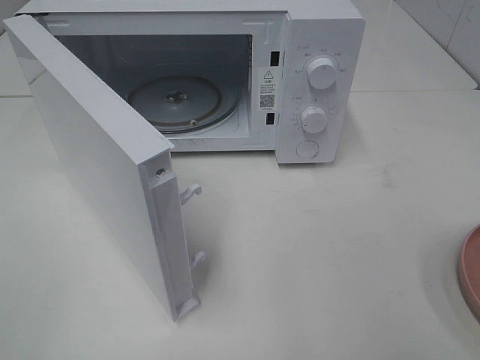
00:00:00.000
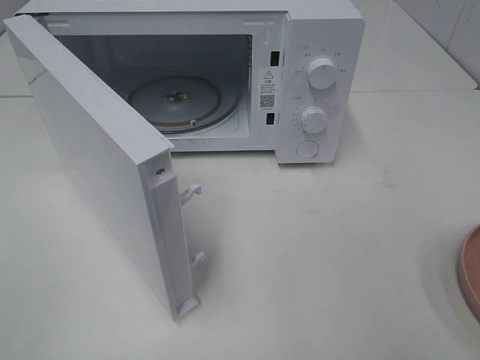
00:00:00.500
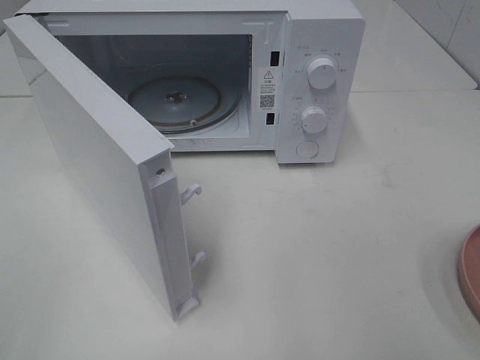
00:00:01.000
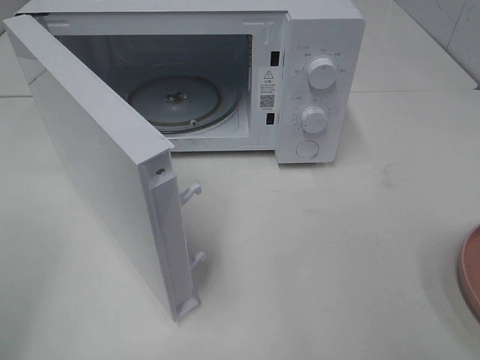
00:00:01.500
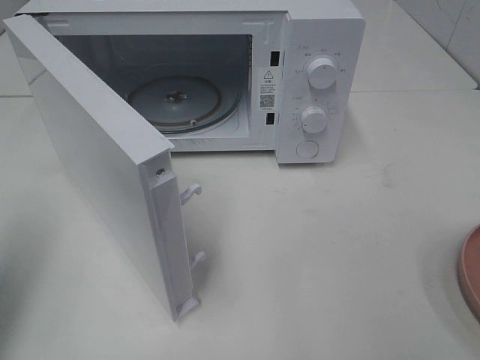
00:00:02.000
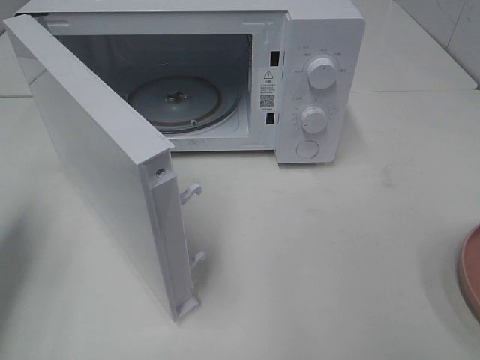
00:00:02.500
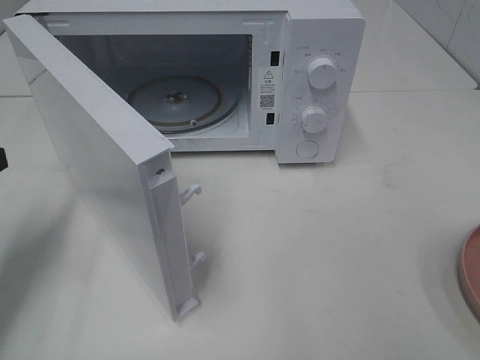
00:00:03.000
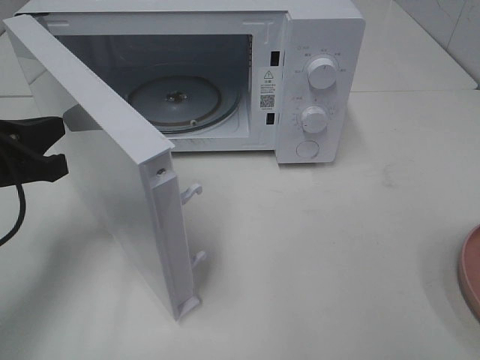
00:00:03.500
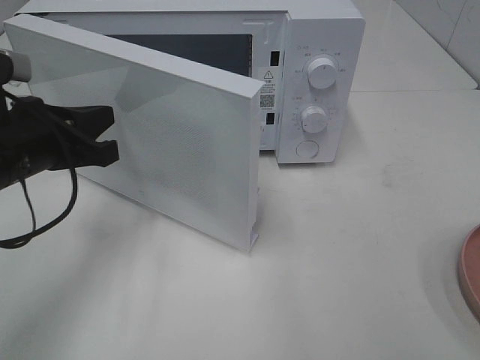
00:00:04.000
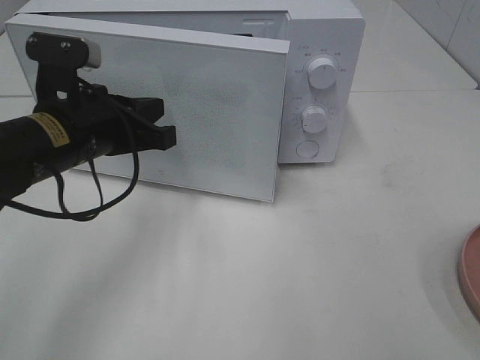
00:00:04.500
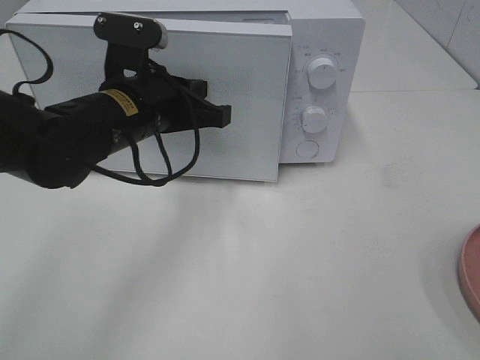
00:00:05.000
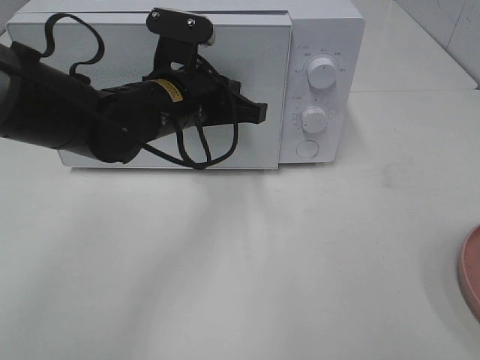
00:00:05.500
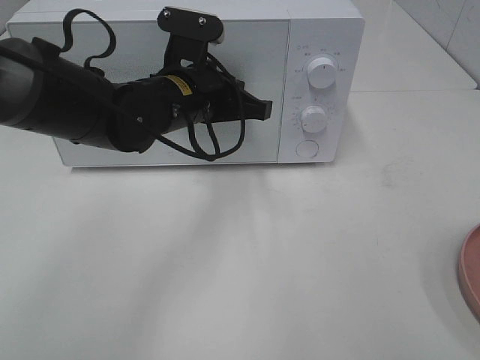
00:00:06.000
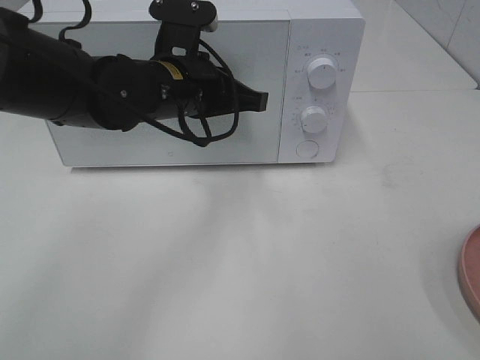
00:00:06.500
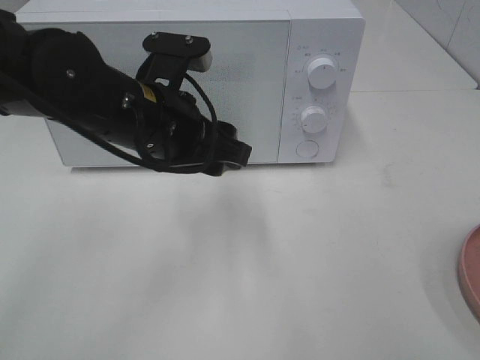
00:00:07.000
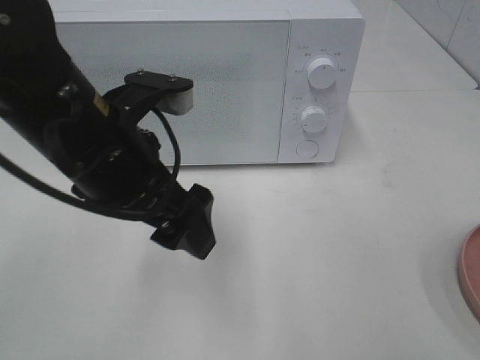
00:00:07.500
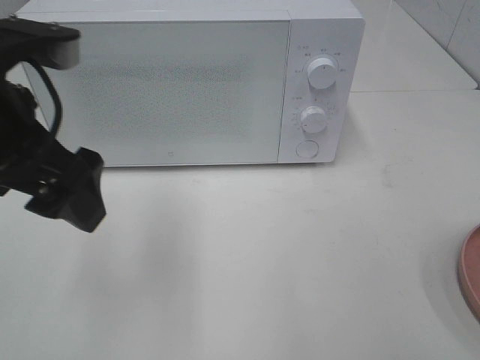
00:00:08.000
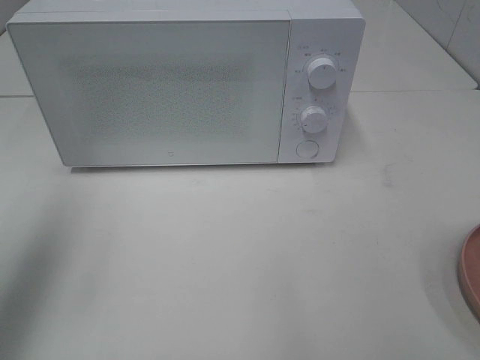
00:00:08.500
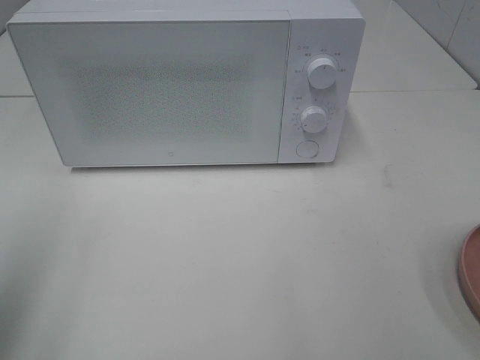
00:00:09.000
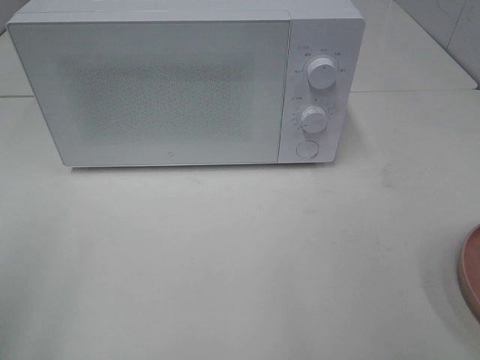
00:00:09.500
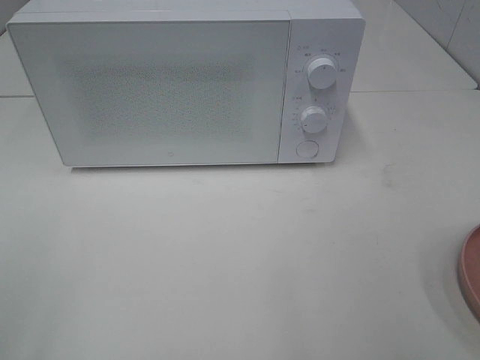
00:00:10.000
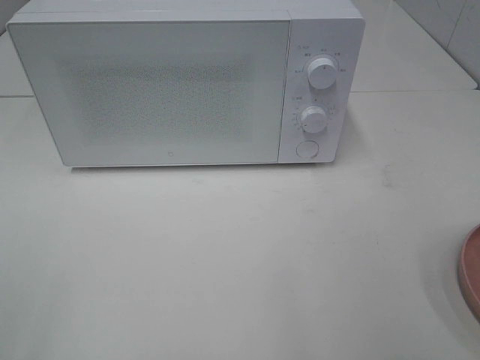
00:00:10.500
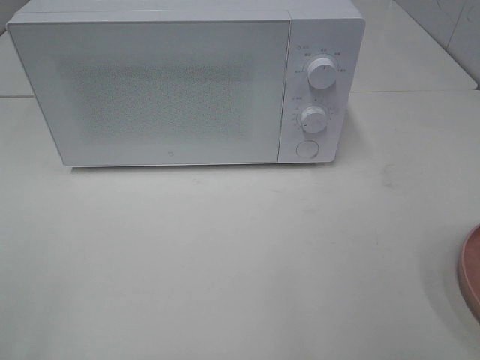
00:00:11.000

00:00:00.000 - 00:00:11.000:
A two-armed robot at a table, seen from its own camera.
Task of the whole recording: Heat the burger.
Step, 00:00:00.000 - 00:00:06.500: Left hand: close the microwave door.
00:00:00.000 - 00:00:02.000: The left gripper goes roughly 15 cm forward, and closes up.
00:00:02.000 - 00:00:03.500: The left gripper shifts roughly 15 cm downward, forward and to the right.
00:00:03.500 - 00:00:05.500: The left gripper shifts roughly 20 cm to the right and forward.
00:00:05.500 - 00:00:07.500: The left gripper heads backward and upward, covering some 10 cm, and opens up.
00:00:07.500 - 00:00:09.000: The left gripper shifts roughly 25 cm to the left and backward.
00:00:09.000 - 00:00:11.000: The left gripper moves backward, approximately 15 cm.

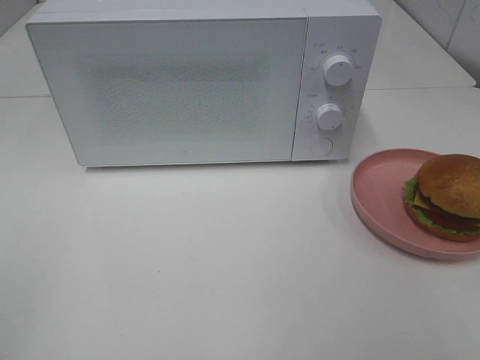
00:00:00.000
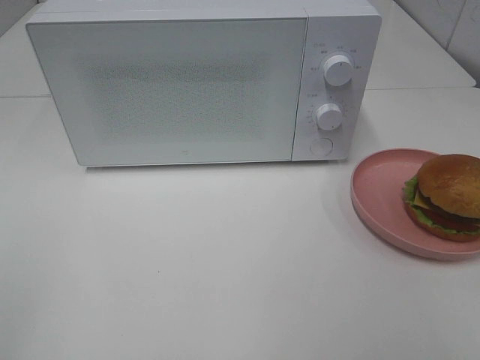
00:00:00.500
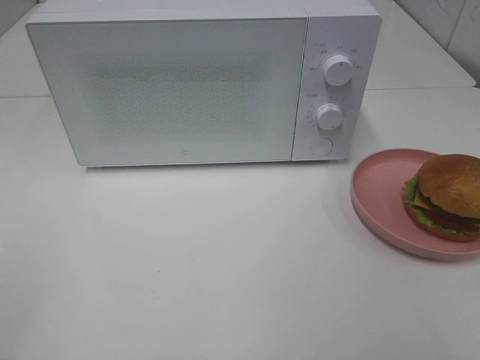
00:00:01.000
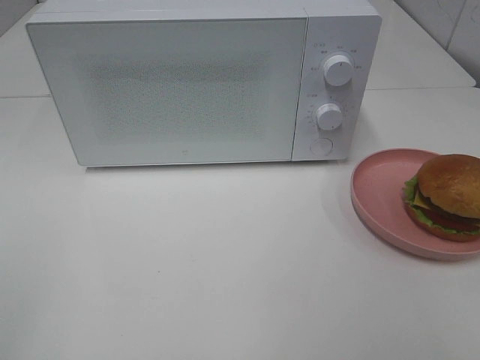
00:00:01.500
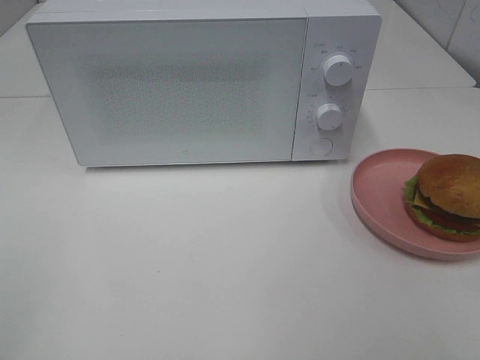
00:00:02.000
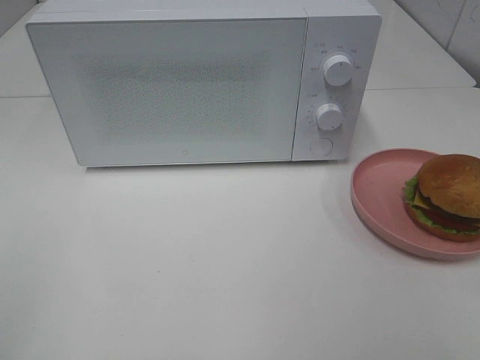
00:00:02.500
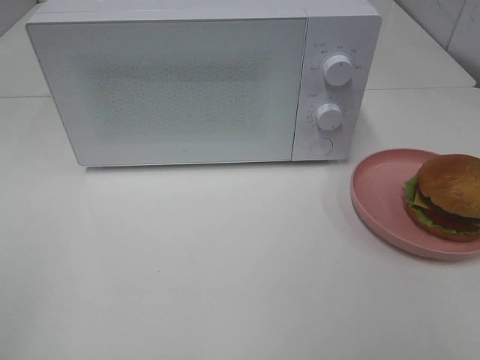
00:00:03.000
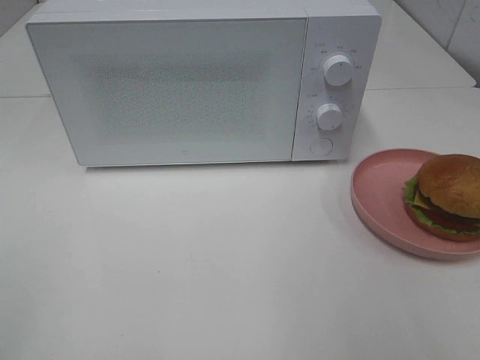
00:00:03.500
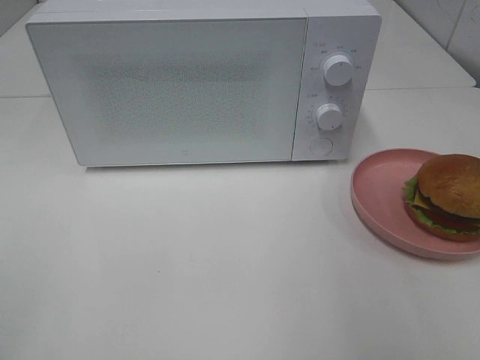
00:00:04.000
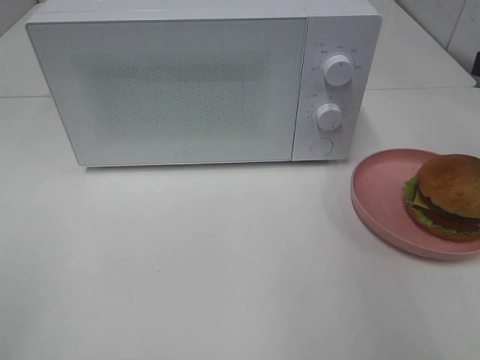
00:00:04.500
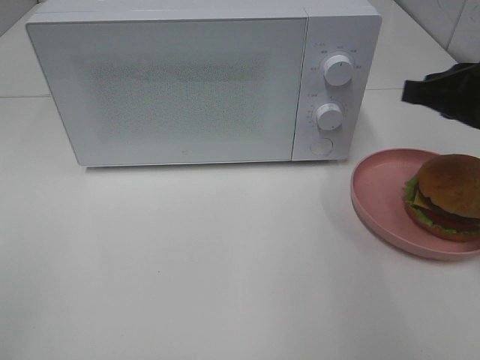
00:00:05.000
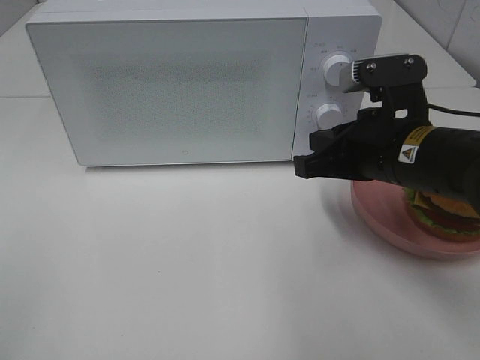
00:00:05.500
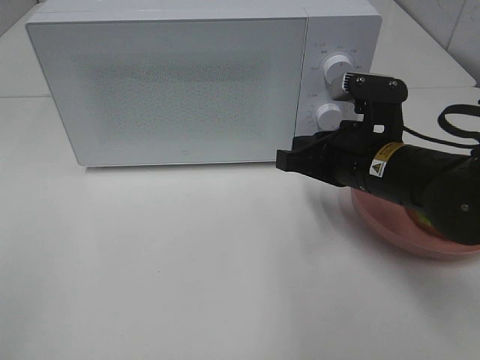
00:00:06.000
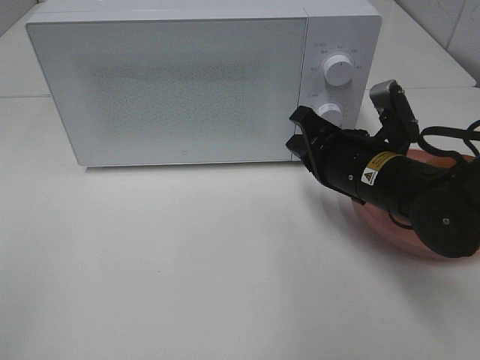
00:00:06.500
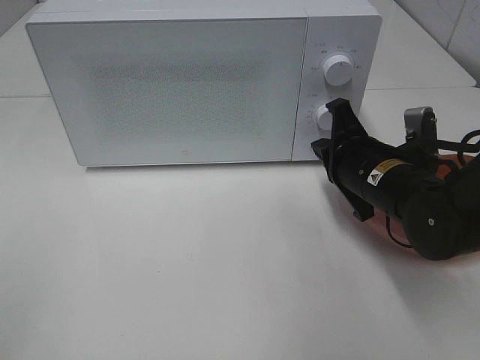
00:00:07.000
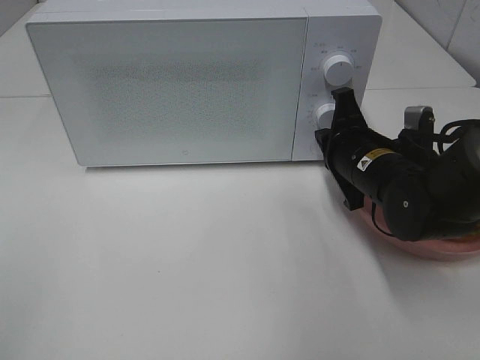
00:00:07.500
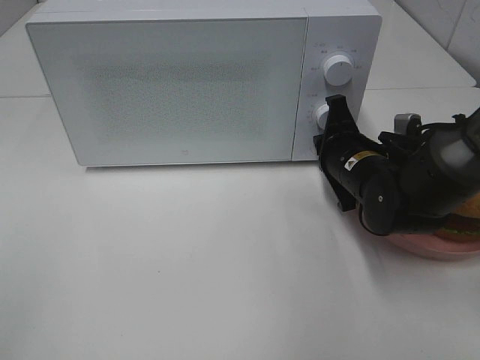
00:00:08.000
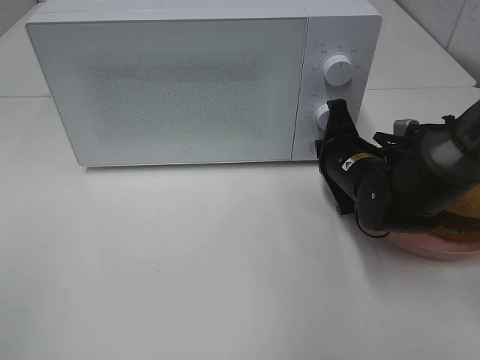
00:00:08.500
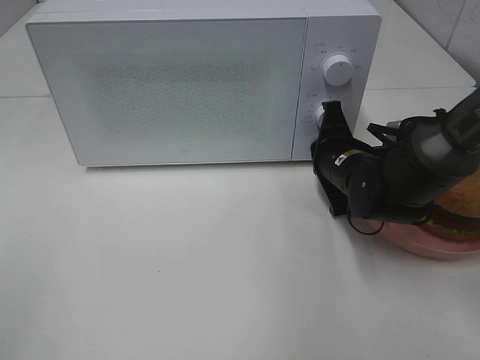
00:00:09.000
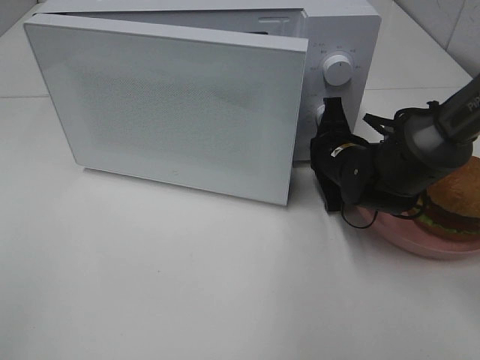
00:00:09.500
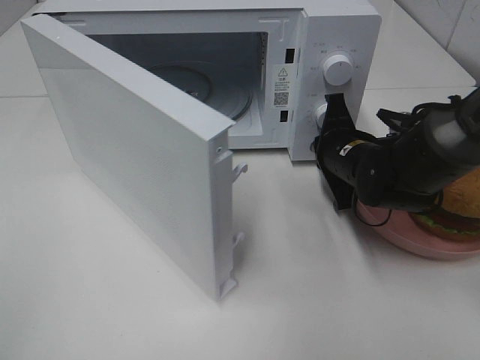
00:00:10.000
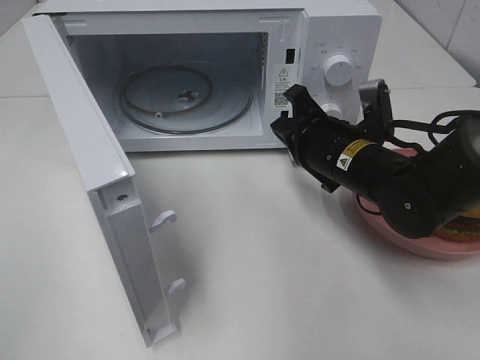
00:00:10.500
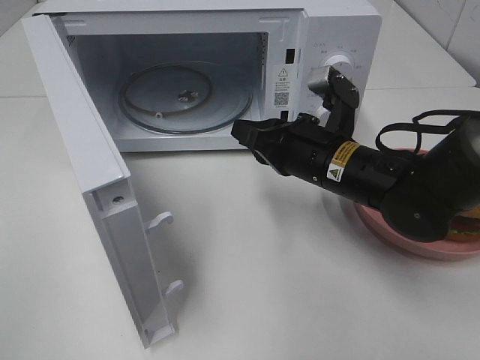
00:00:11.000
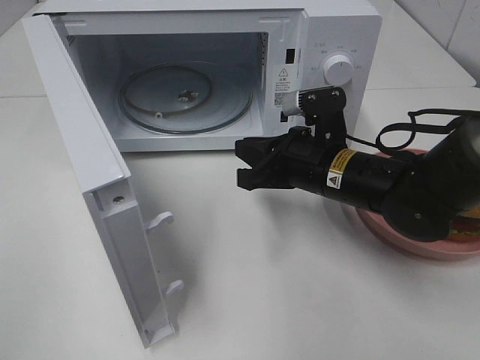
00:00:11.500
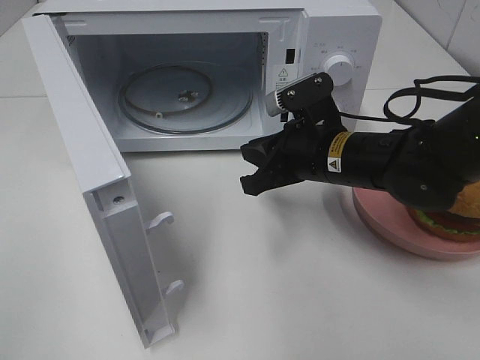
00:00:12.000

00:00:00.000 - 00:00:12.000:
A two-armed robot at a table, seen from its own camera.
Task of the whole recording: Heat the burger.
Step, 00:00:00.000 - 00:00:10.000: Right hand: press the switch.
00:00:00.000 - 00:00:02.000: Both grippers stay put.
00:00:04.000 - 00:00:06.000: The right gripper shifts approximately 25 cm downward, to the left and forward, and closes up.
00:00:06.000 - 00:00:08.000: The right gripper moves forward and downward, approximately 10 cm.
00:00:10.000 - 00:00:12.000: The right gripper moves backward, some 5 cm.

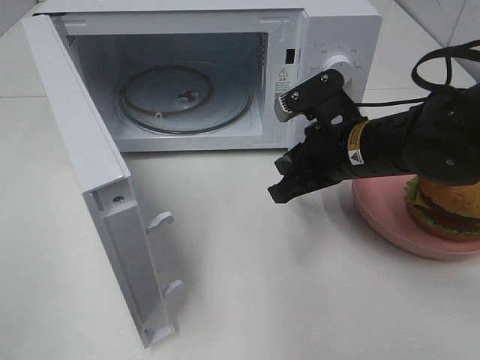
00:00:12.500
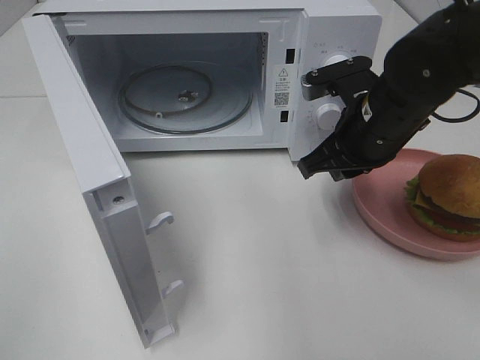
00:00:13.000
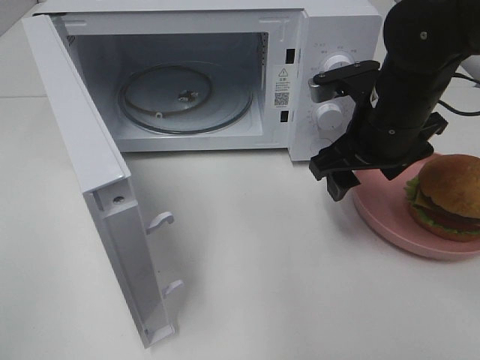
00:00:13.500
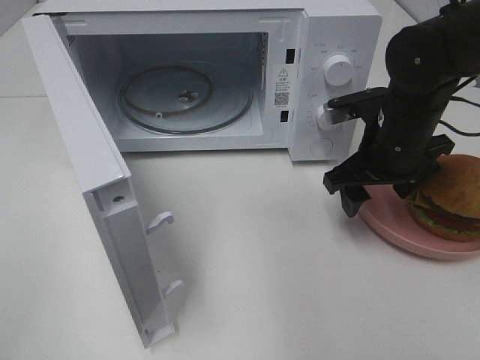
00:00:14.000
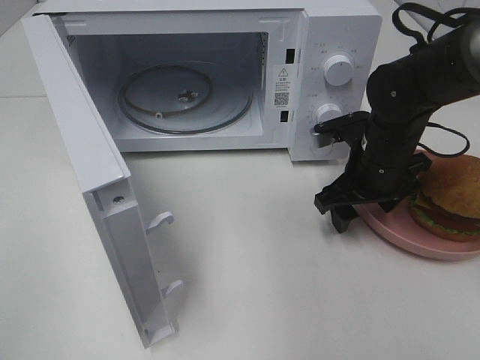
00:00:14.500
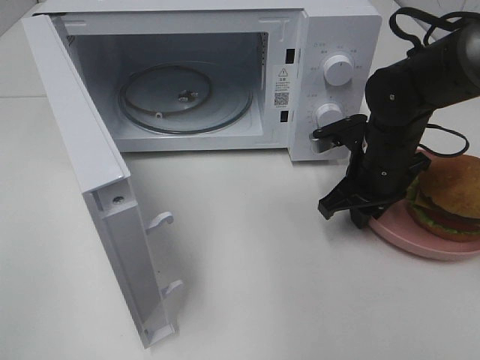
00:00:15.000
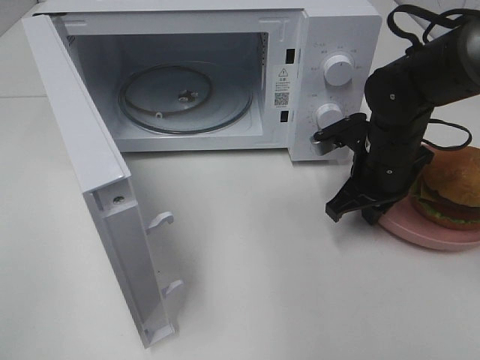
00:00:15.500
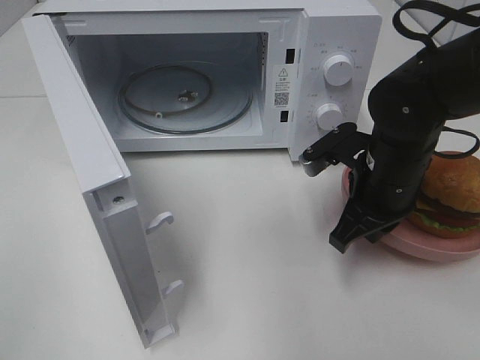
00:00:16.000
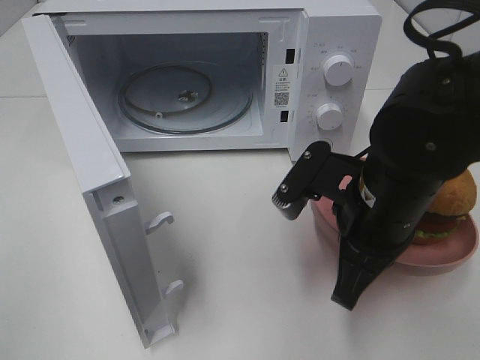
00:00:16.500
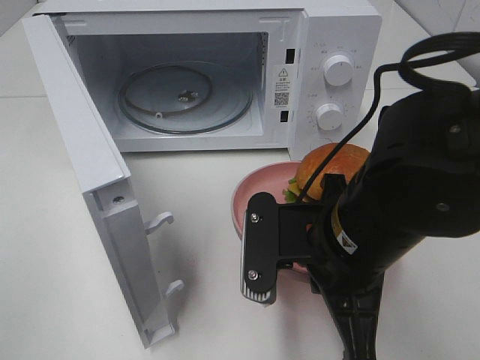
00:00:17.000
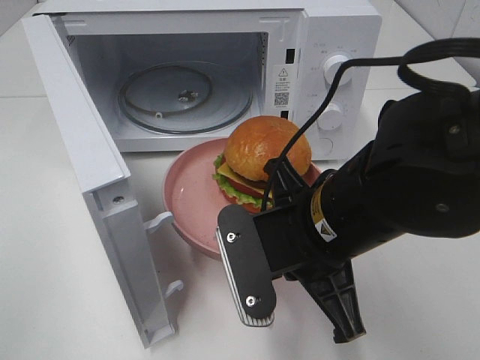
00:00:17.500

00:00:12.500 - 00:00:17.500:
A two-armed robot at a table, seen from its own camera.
Task of the whole recording: Heat the burger.
Step, 00:00:12.500 - 00:00:14.500: Right hand: grab the plate with the hamburger.
00:00:12.500 - 00:00:15.000: The right gripper changes place by approximately 10 cm, and opens, then closes once more.
00:00:15.000 - 00:00:17.500: The right gripper shifts roughly 20 cm backward, to the left and upward.
